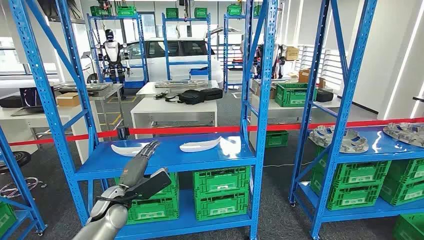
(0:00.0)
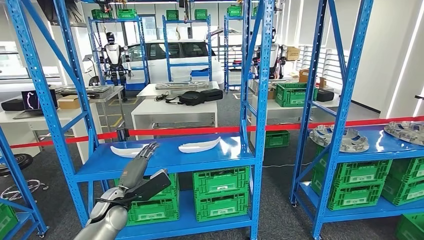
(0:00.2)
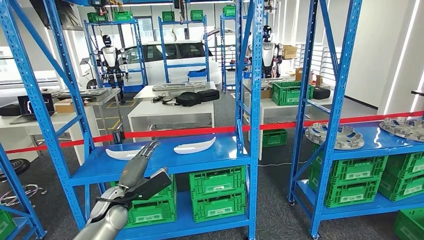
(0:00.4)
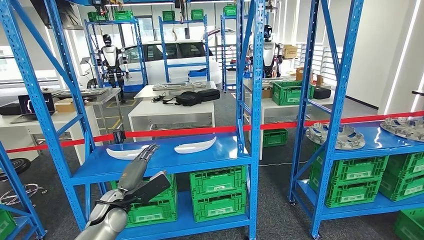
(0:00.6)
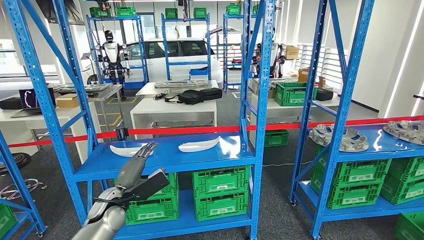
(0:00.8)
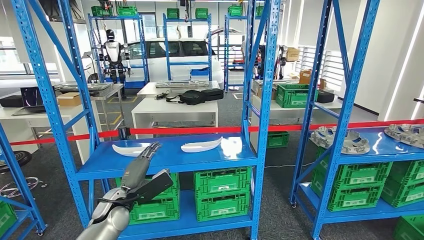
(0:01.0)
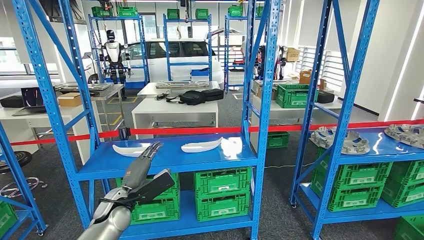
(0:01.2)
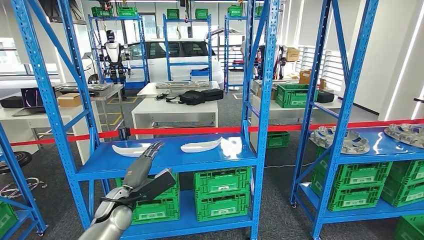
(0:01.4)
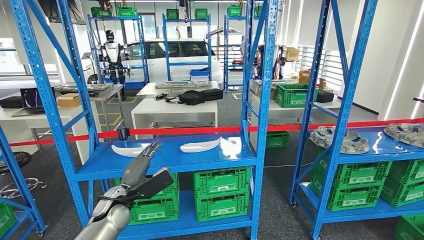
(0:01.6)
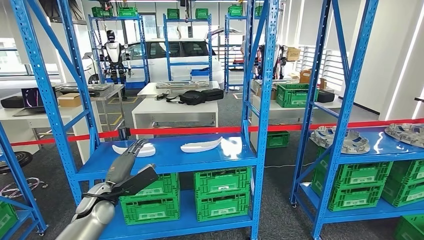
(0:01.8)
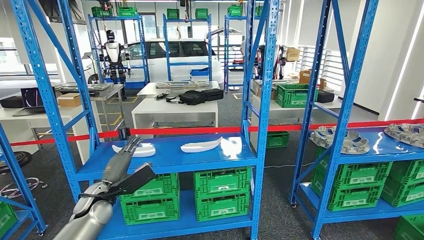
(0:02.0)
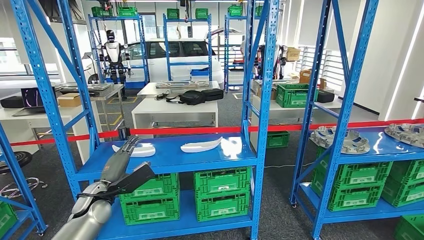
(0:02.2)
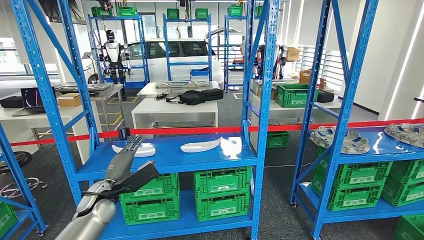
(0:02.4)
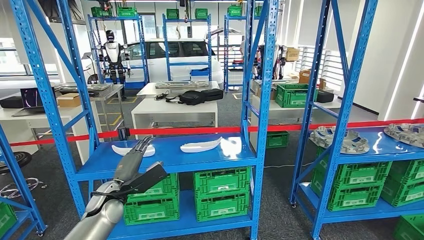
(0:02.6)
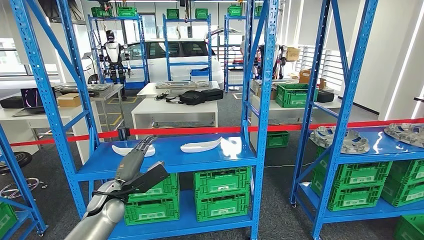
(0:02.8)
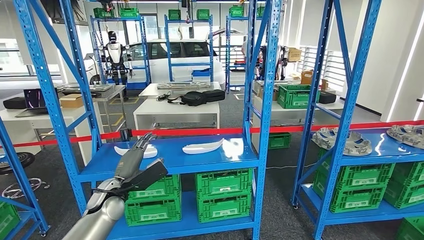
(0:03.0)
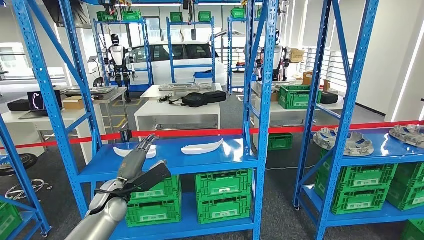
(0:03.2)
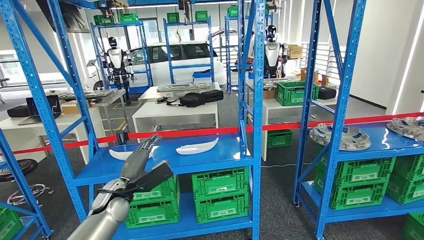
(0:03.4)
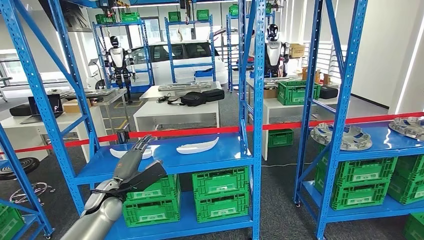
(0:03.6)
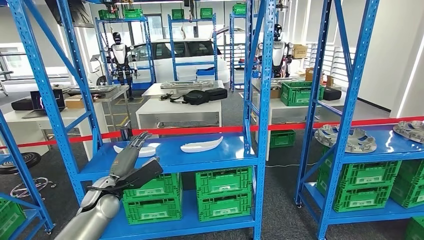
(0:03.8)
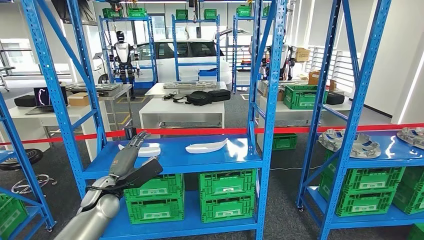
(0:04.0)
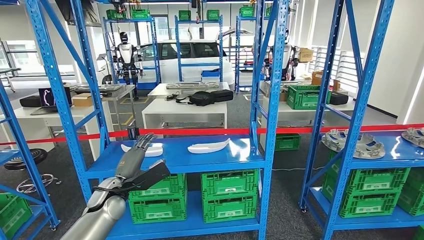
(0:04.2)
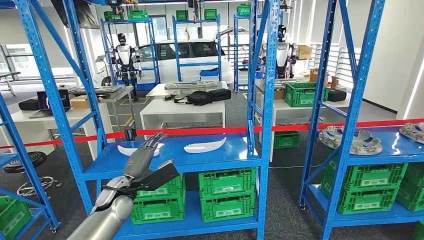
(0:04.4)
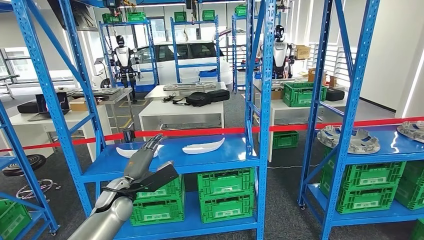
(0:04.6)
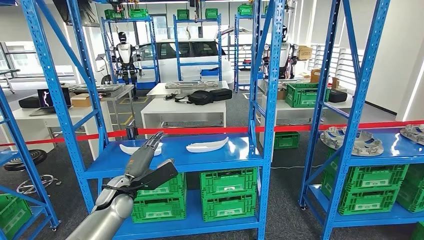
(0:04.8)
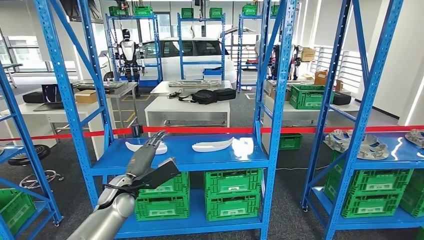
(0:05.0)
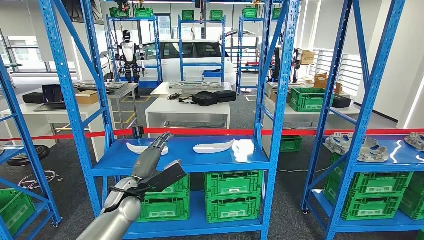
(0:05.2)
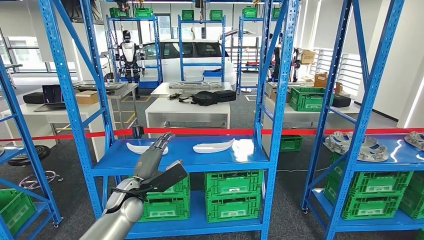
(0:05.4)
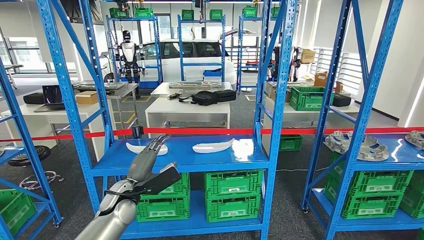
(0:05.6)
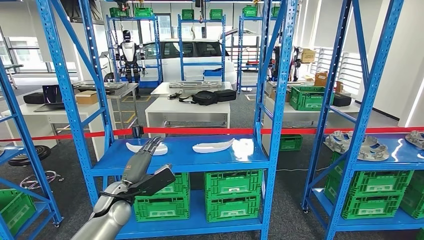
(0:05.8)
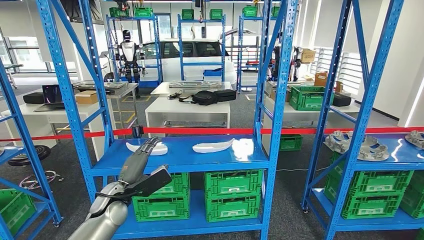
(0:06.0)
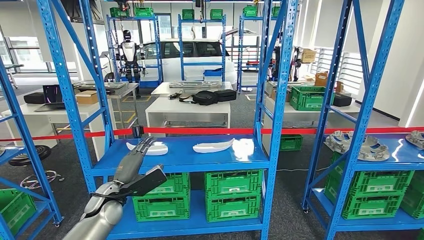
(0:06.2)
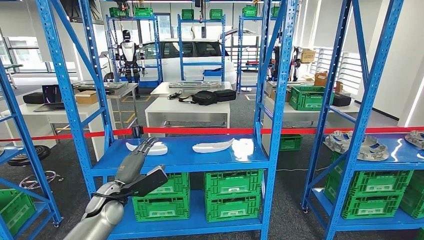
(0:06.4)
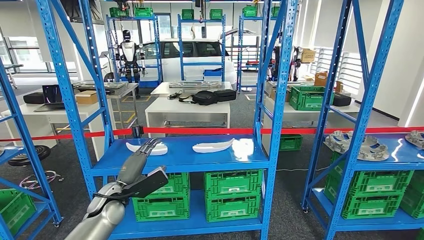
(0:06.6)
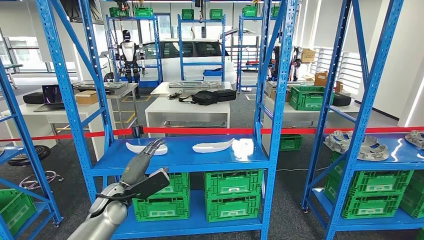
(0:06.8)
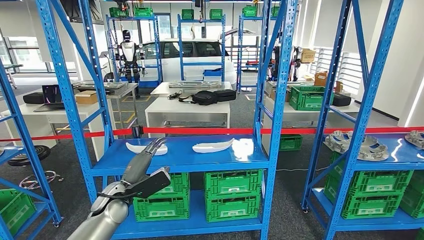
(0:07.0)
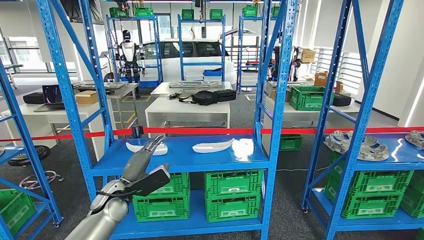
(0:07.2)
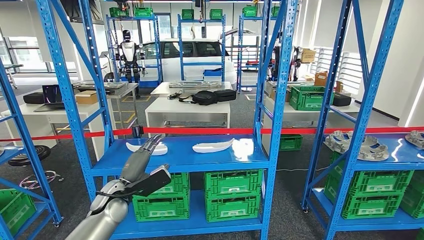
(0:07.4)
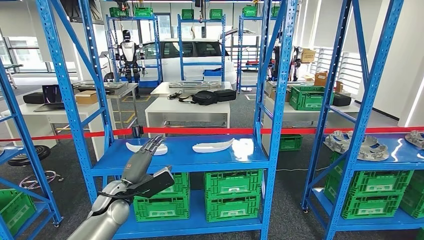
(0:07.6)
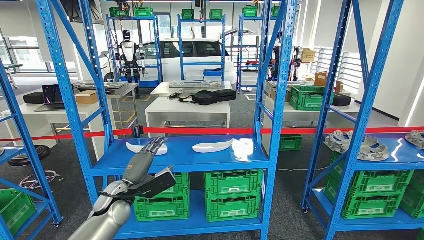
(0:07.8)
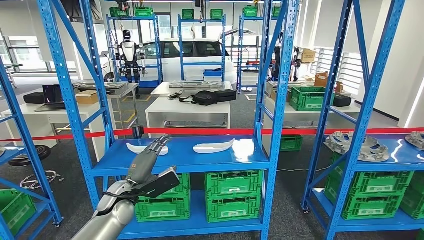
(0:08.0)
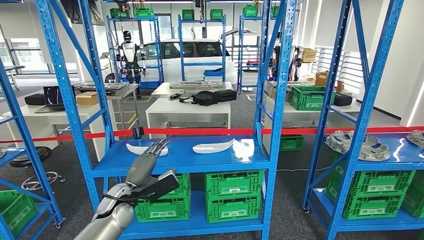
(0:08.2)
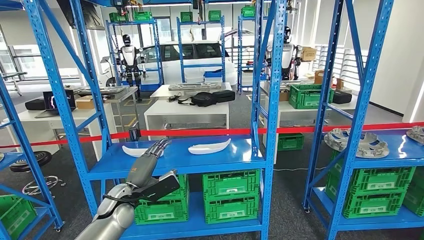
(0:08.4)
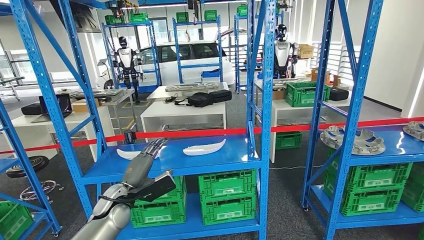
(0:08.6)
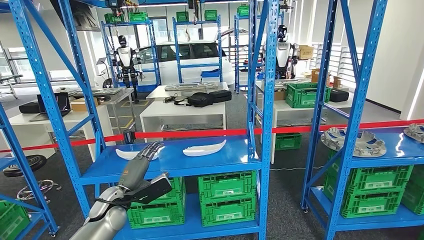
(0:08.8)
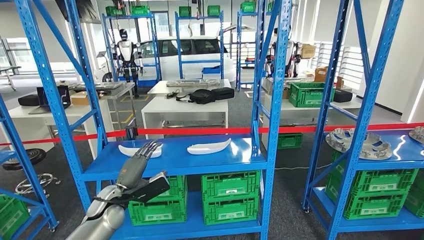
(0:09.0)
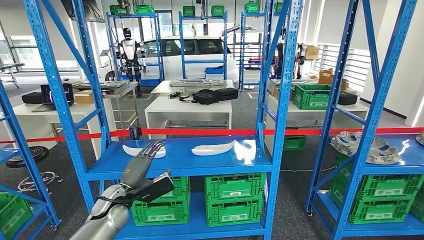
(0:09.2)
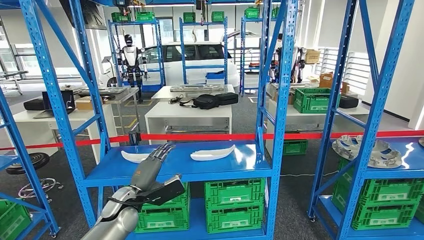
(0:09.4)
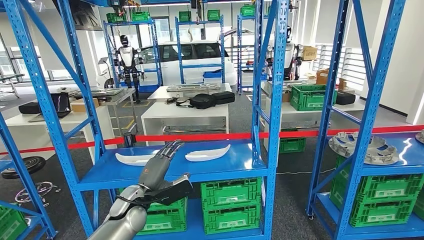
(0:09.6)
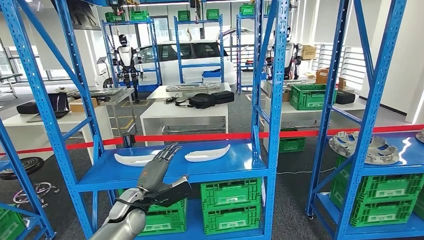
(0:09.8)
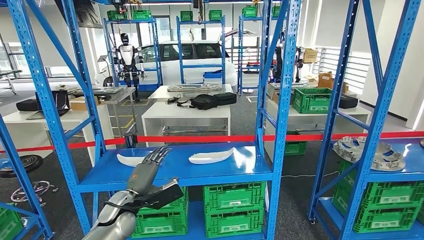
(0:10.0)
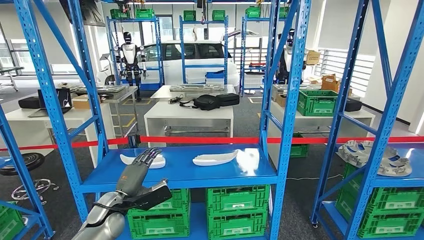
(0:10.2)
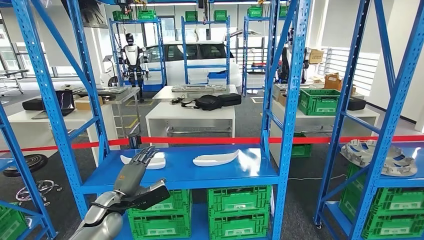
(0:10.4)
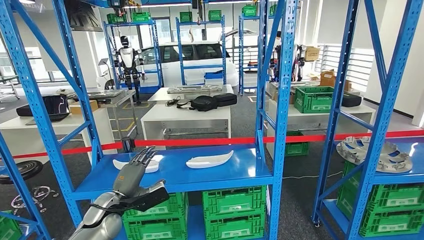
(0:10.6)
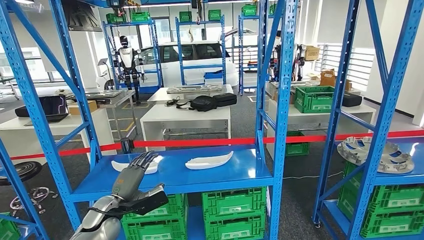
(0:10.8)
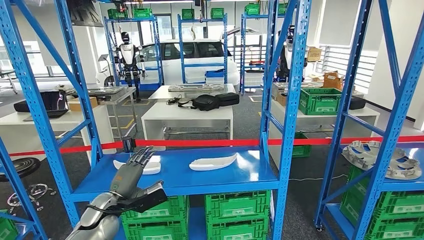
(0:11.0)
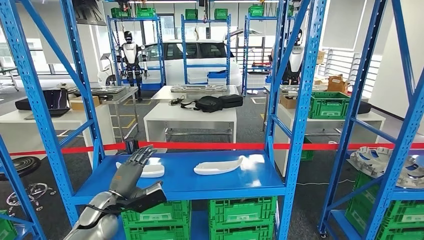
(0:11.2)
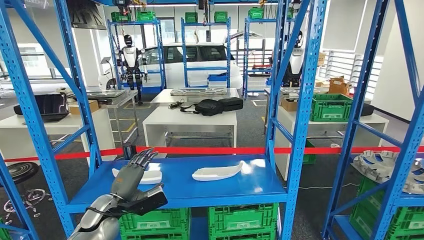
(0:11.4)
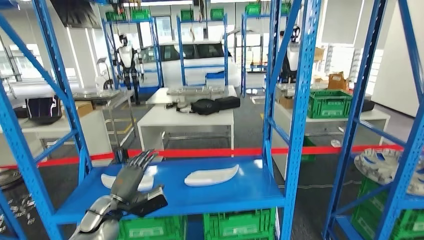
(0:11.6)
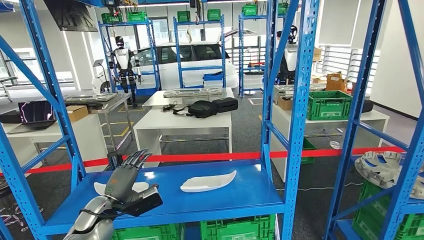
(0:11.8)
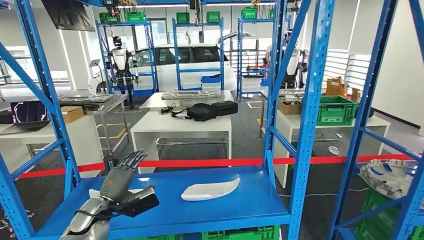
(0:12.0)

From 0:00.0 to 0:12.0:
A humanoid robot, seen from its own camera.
From 0:06.0 to 0:07.6: The hands move only a little.

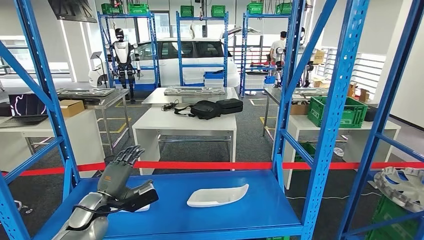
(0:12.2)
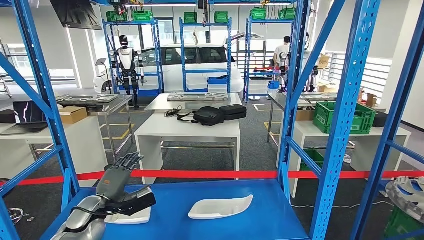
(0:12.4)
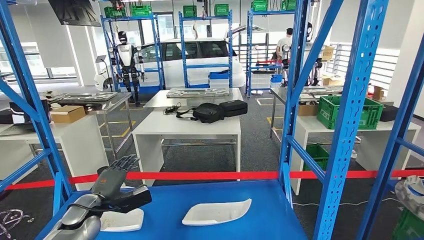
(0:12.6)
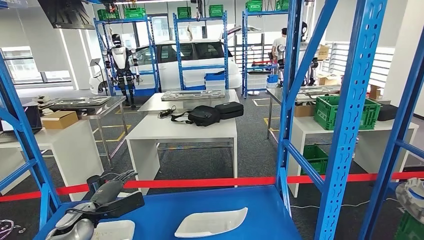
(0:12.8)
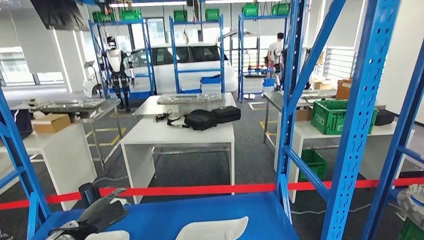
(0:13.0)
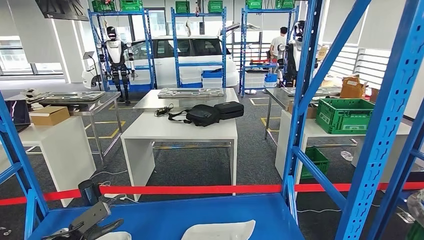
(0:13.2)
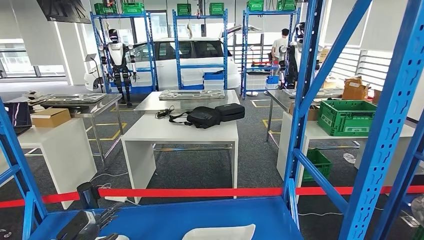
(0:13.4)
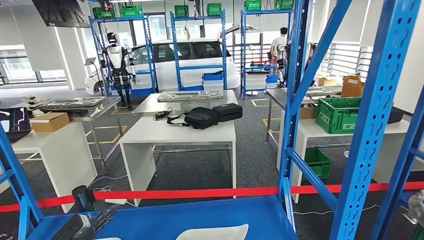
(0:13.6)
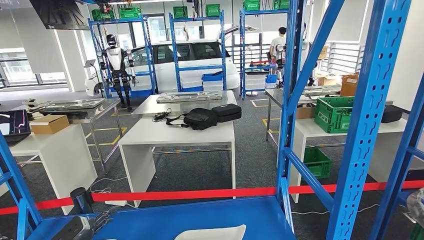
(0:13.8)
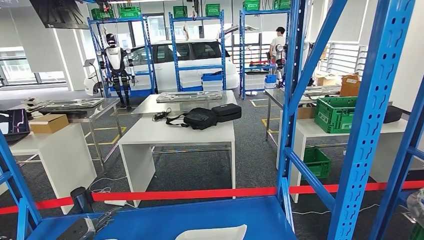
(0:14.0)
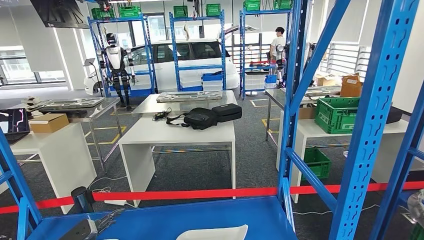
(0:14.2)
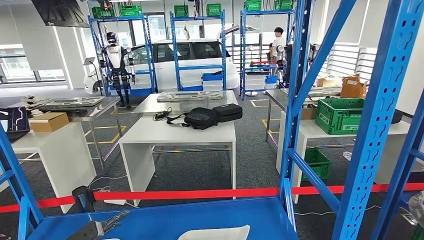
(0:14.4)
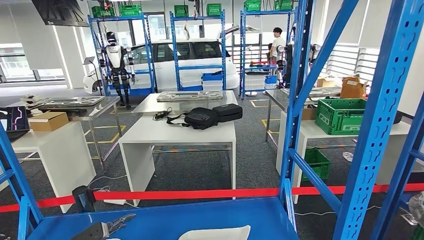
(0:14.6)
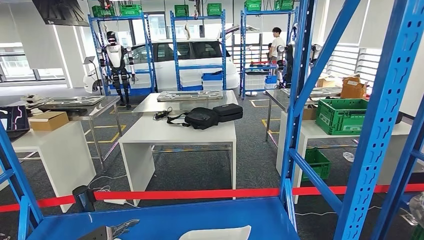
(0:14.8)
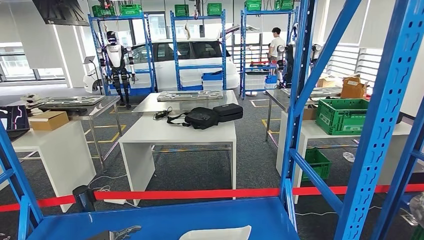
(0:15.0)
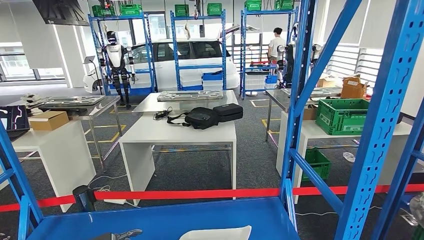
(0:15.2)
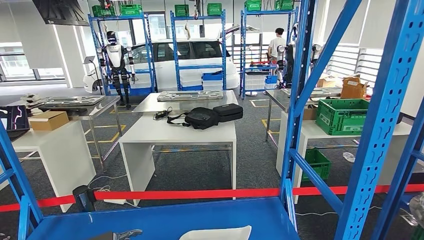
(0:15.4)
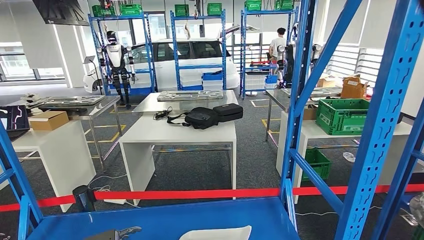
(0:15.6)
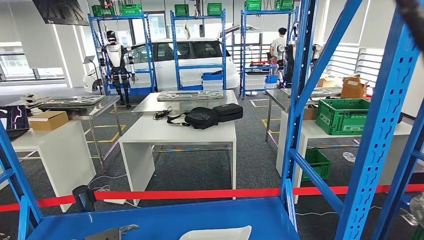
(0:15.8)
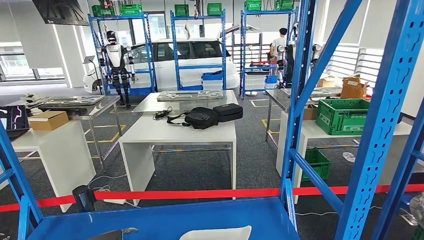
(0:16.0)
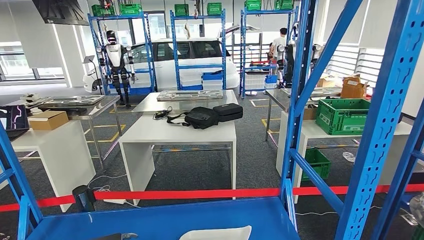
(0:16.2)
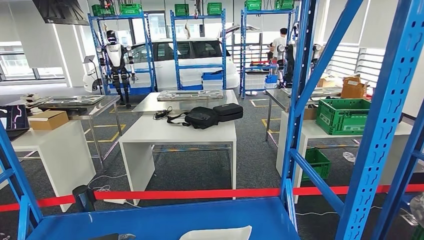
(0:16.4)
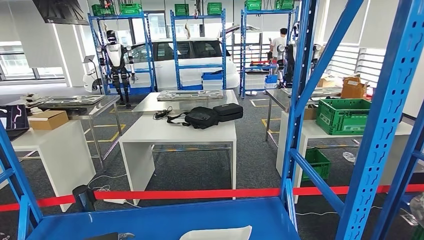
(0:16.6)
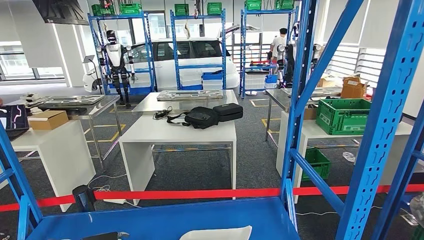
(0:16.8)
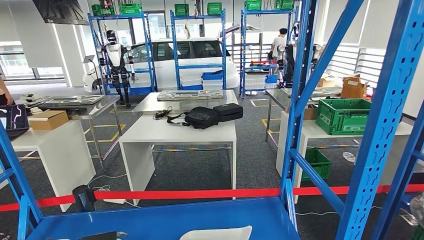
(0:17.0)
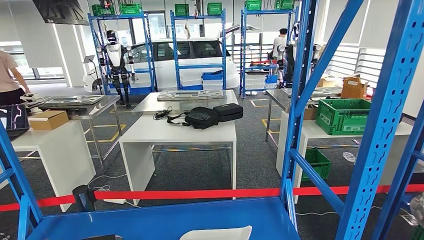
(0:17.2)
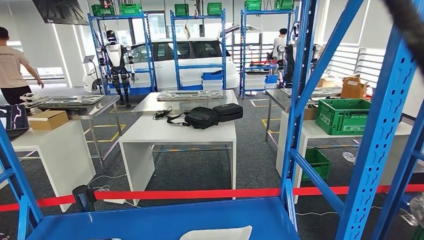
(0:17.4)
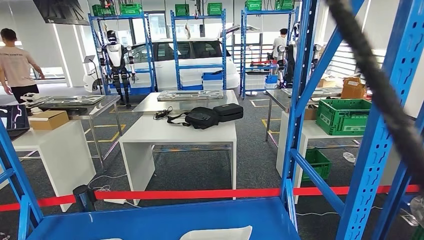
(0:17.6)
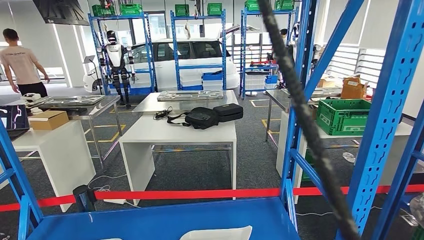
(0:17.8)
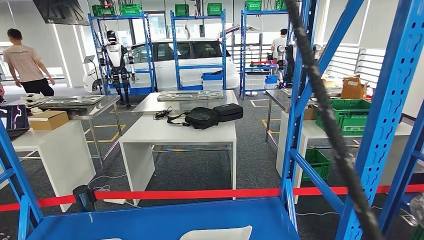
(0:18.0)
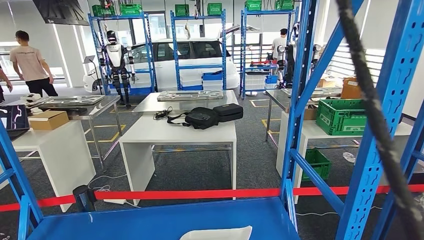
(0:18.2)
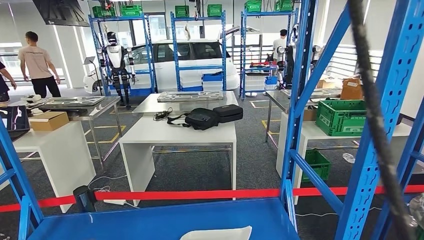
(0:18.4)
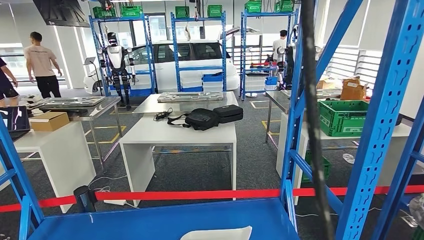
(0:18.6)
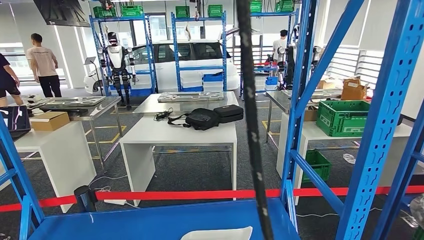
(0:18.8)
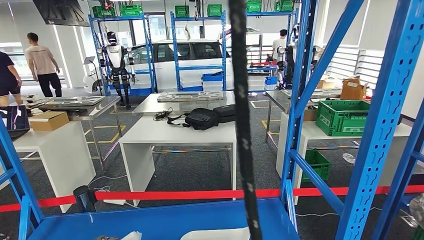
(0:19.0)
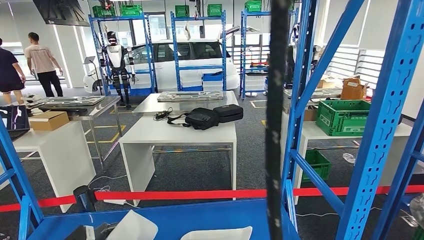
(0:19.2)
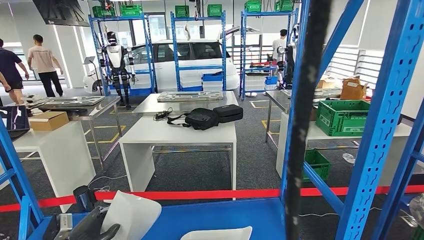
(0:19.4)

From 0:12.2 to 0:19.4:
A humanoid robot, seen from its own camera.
From 0:15.0 to 0:16.6: The hands make only small movements.
From 0:18.0 to 0:19.4: The left hand is displaced to the right by some 5 cm.
